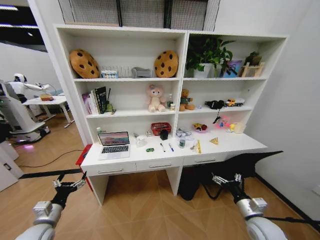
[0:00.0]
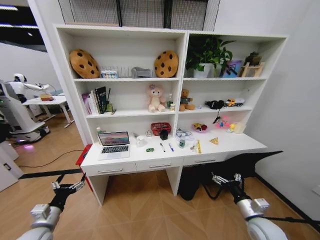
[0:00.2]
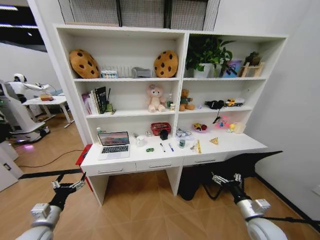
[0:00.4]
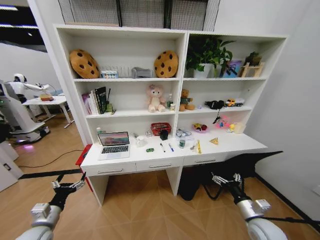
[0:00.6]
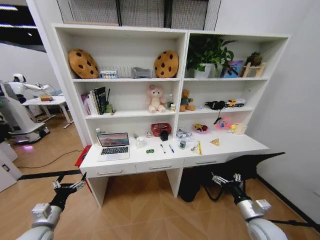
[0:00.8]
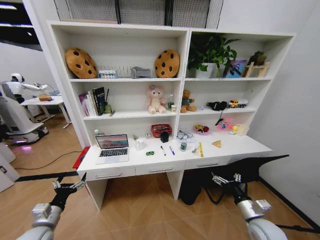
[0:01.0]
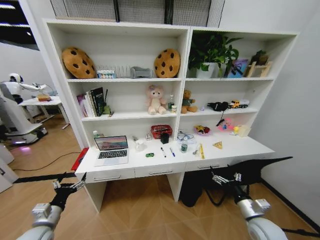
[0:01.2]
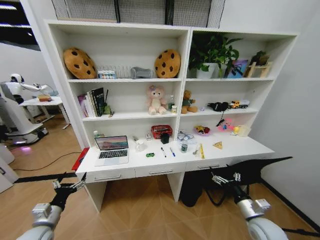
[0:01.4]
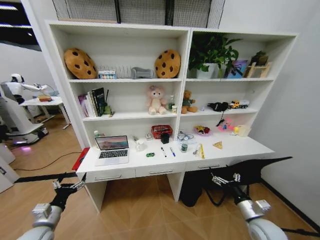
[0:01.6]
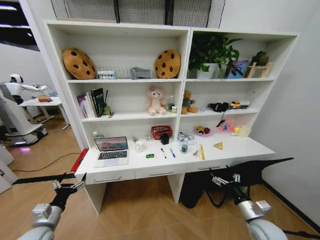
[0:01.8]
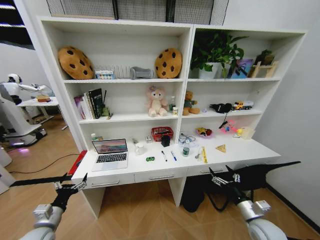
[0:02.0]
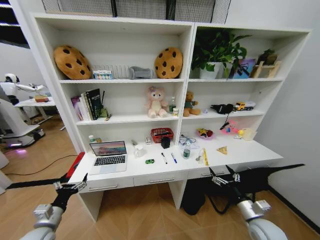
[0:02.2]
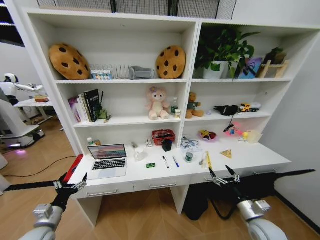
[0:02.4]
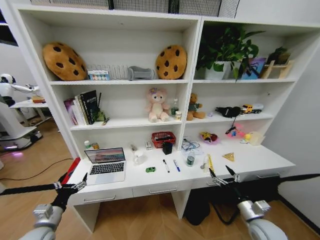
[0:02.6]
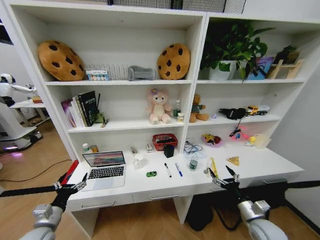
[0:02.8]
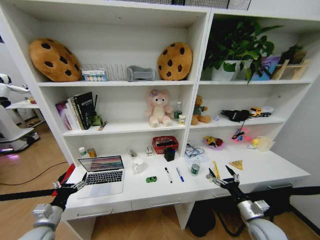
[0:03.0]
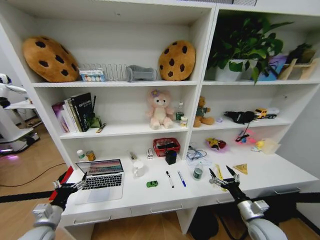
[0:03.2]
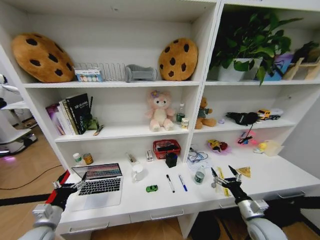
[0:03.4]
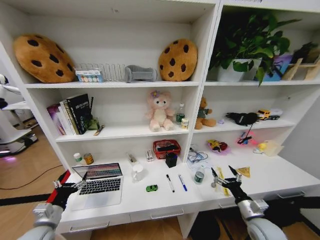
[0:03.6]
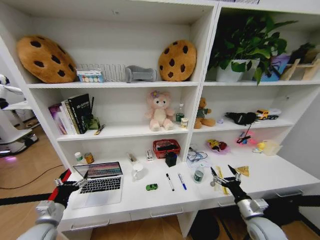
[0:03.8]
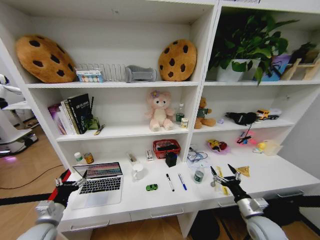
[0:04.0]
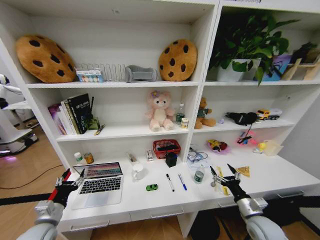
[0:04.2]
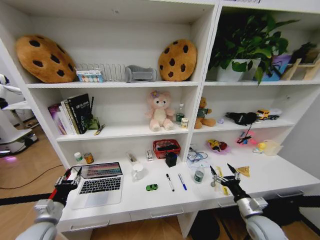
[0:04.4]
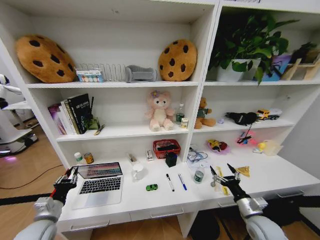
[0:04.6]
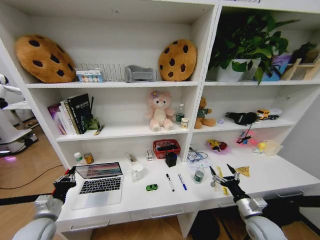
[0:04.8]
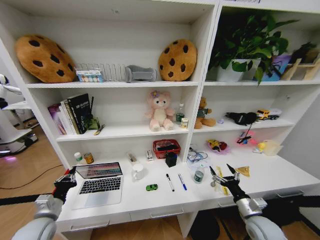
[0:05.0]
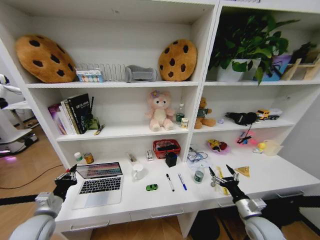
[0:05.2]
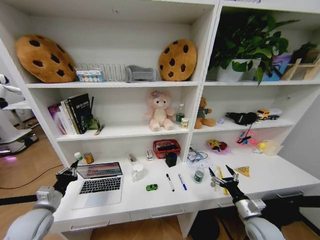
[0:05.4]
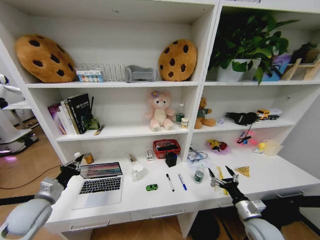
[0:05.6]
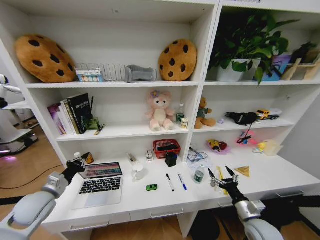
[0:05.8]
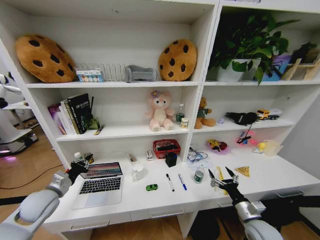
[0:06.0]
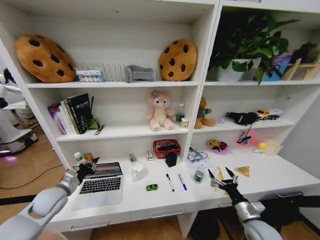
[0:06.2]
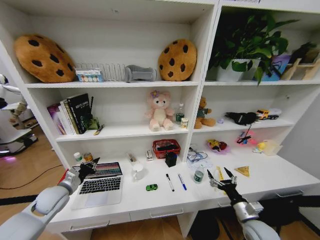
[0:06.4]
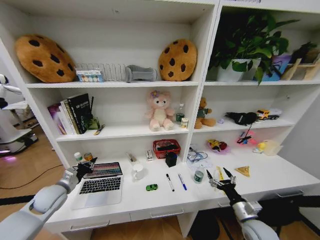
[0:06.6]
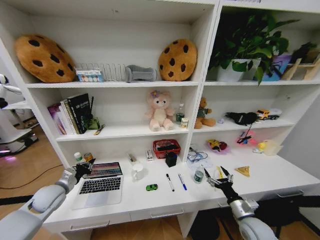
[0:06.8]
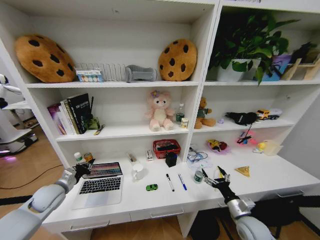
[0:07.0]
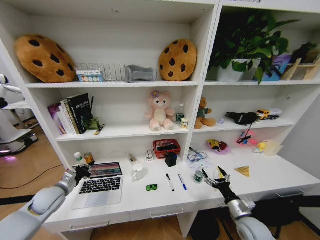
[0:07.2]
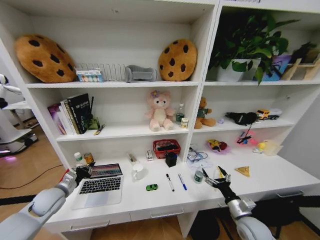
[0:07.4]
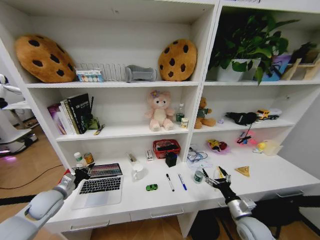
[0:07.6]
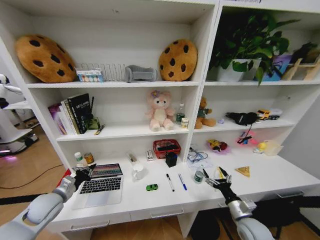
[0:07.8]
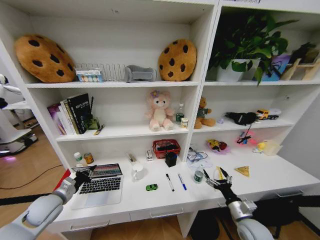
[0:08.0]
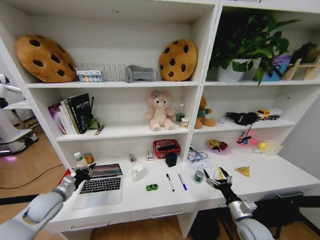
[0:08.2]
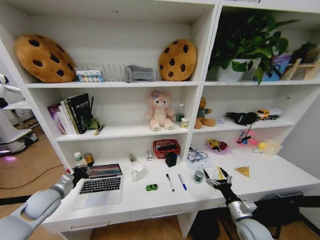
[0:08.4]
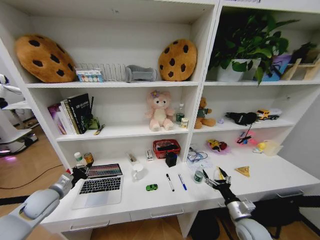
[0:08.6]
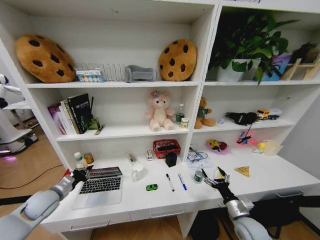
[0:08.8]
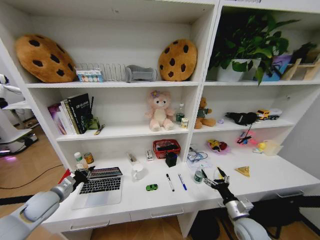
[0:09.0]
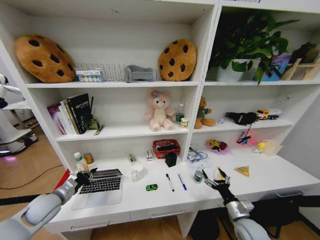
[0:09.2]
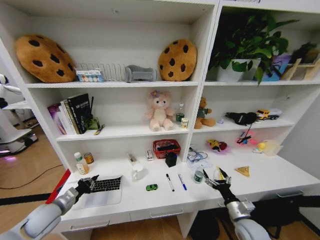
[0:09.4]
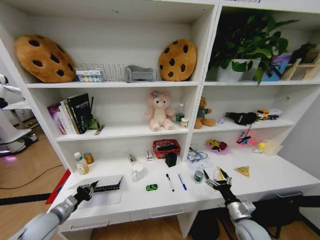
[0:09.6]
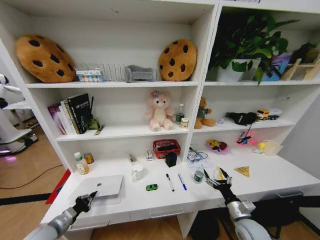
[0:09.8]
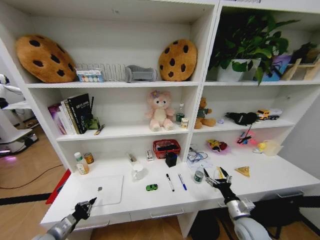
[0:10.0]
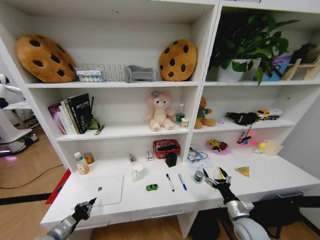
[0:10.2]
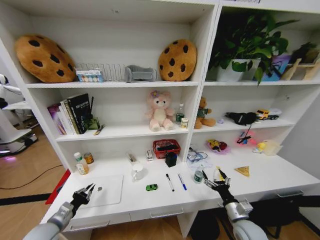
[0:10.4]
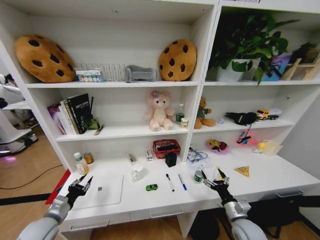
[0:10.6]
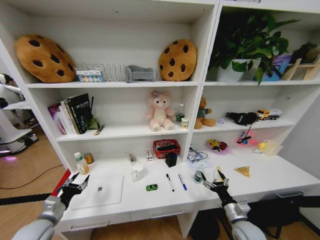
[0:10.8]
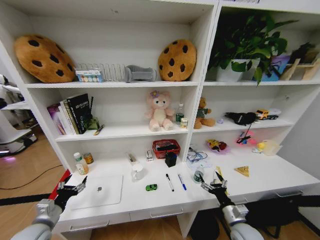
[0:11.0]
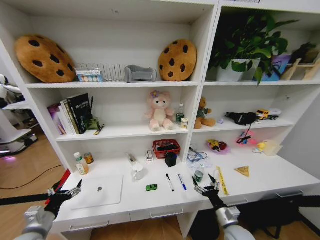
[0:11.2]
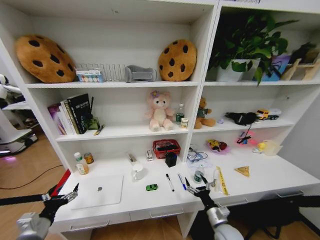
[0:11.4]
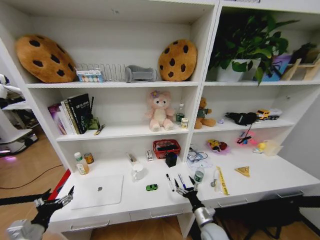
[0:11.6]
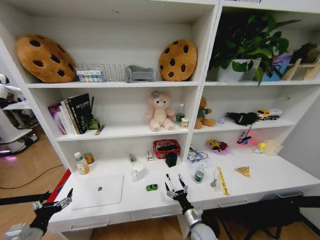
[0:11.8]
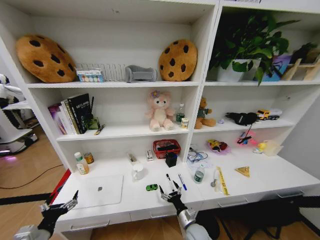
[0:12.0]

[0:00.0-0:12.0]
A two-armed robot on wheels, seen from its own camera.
Task of the whole recording: Organize the objects on the table.
0:03.0 to 0:04.4: The left gripper closes up.
0:04.4 to 0:06.0: The left gripper shifts some 10 cm forward and upward, and closes up.
0:06.0 to 0:09.0: The grippers move only a little.
0:09.0 to 0:10.4: The left gripper heads backward and downward, covering about 10 cm.
0:10.4 to 0:12.0: The left gripper heads backward, covering about 10 cm, and opens up. Meanwhile the right gripper shifts some 20 cm to the left and downward.

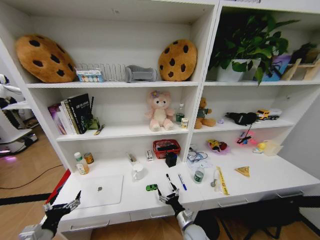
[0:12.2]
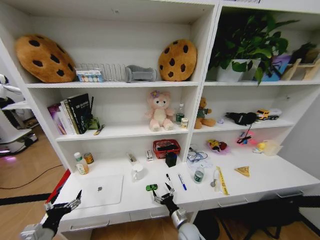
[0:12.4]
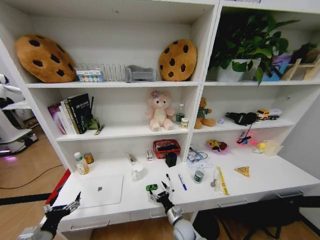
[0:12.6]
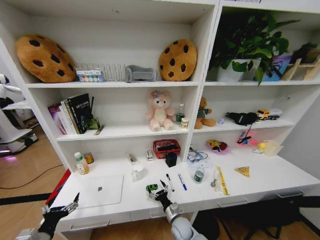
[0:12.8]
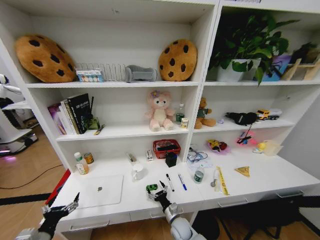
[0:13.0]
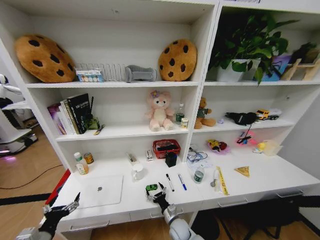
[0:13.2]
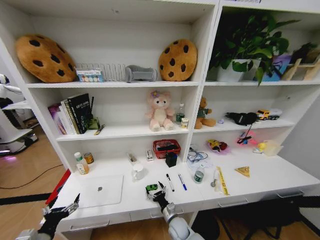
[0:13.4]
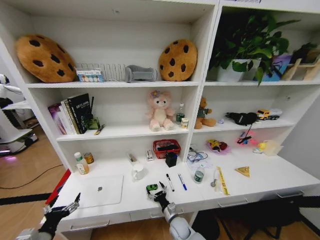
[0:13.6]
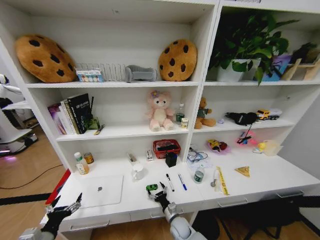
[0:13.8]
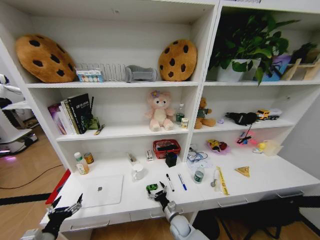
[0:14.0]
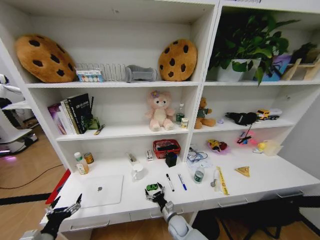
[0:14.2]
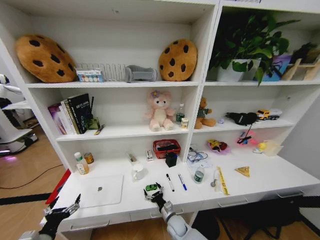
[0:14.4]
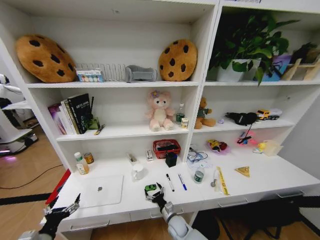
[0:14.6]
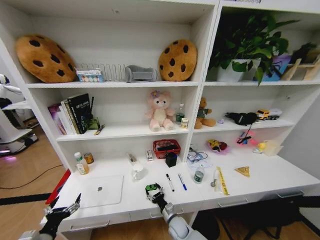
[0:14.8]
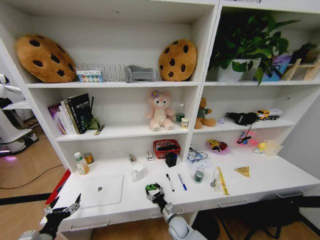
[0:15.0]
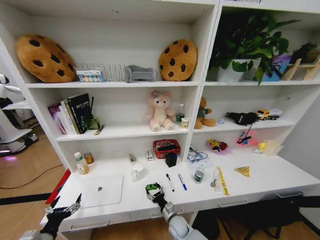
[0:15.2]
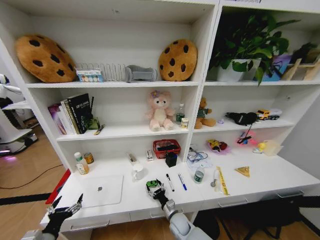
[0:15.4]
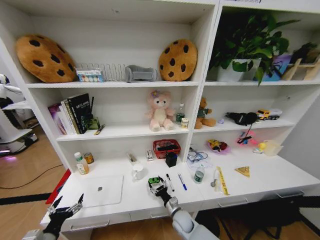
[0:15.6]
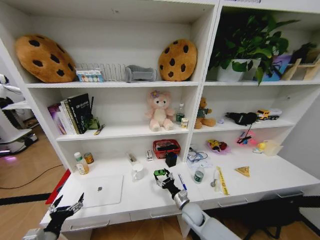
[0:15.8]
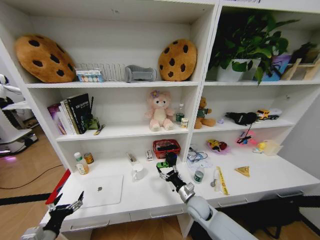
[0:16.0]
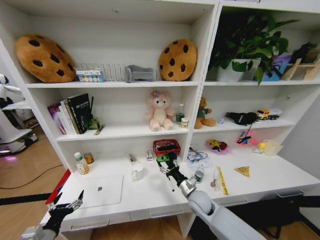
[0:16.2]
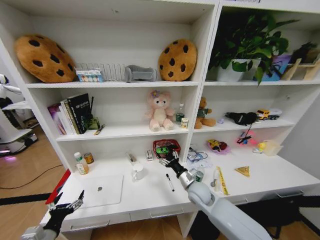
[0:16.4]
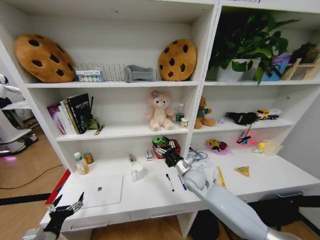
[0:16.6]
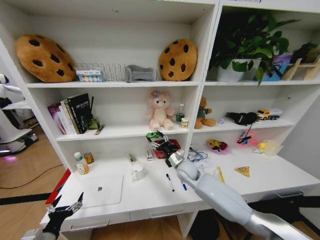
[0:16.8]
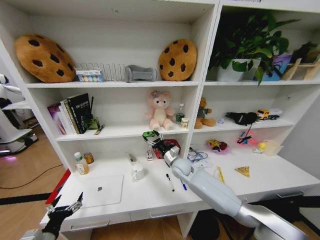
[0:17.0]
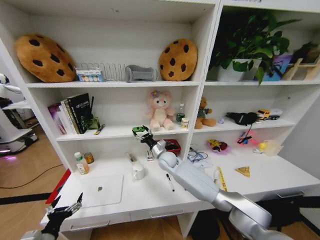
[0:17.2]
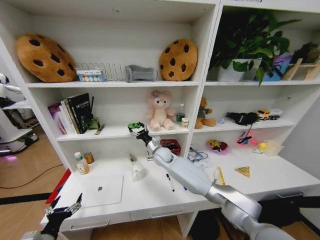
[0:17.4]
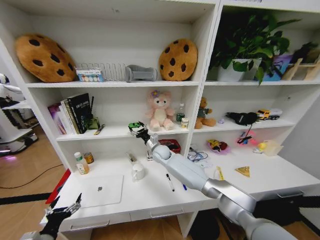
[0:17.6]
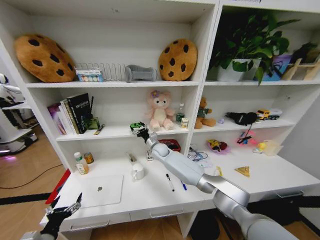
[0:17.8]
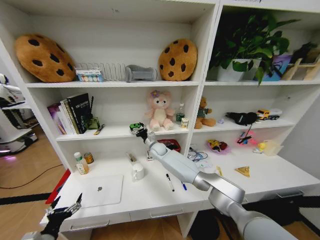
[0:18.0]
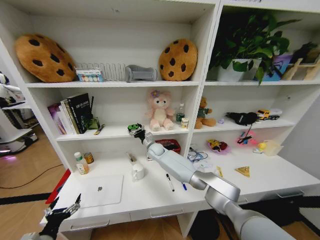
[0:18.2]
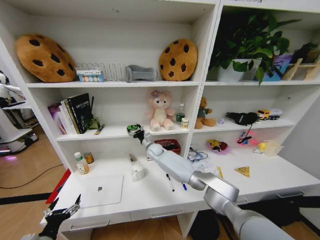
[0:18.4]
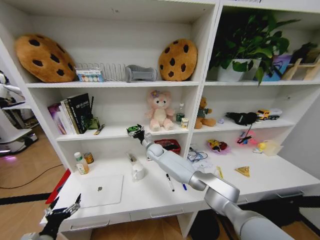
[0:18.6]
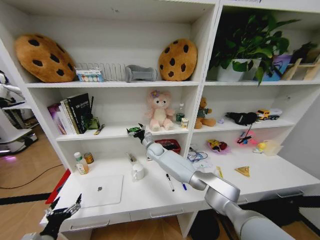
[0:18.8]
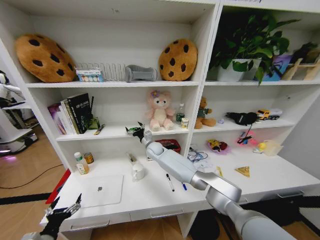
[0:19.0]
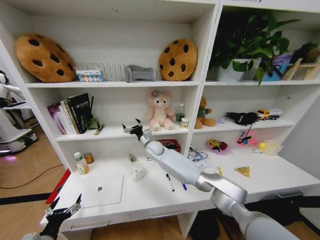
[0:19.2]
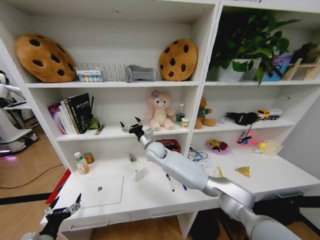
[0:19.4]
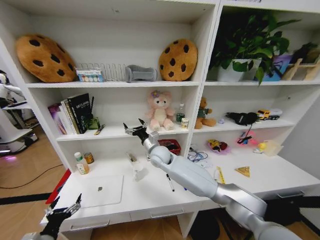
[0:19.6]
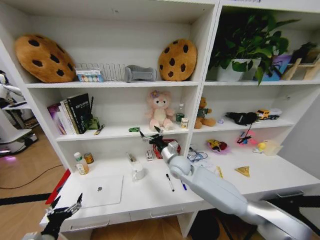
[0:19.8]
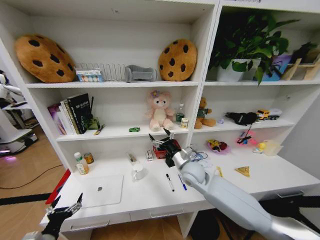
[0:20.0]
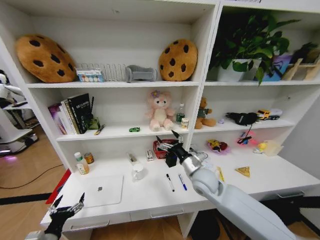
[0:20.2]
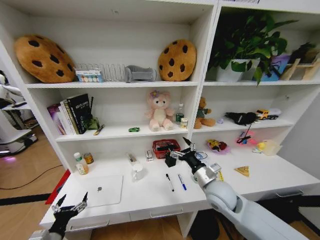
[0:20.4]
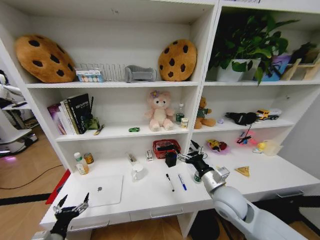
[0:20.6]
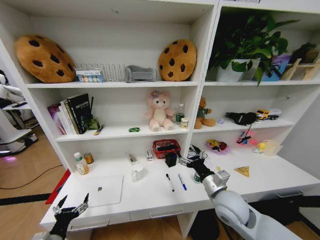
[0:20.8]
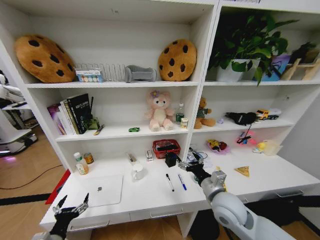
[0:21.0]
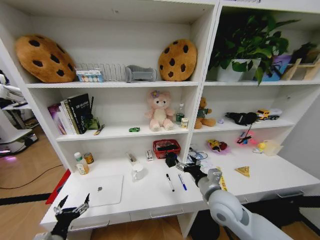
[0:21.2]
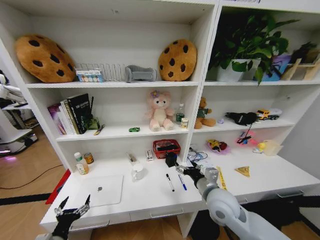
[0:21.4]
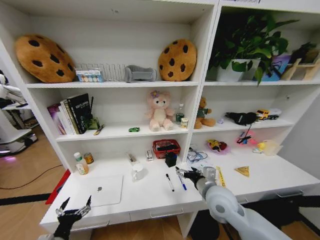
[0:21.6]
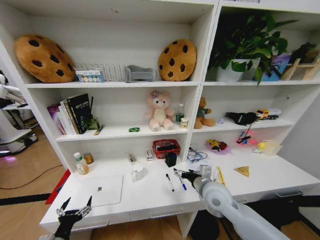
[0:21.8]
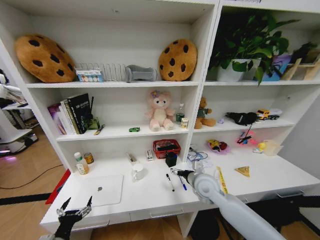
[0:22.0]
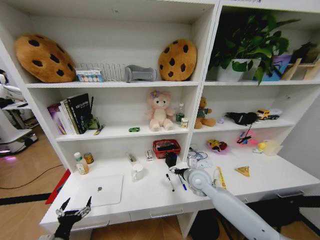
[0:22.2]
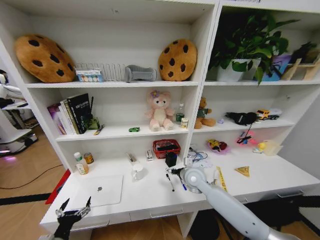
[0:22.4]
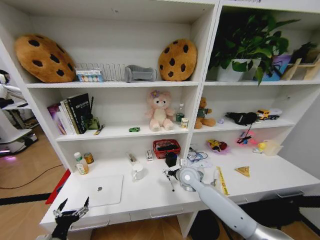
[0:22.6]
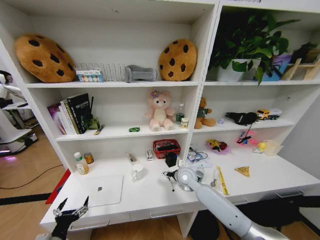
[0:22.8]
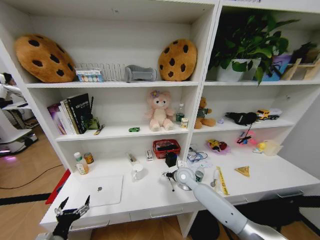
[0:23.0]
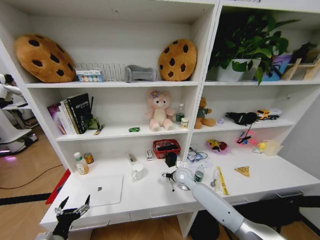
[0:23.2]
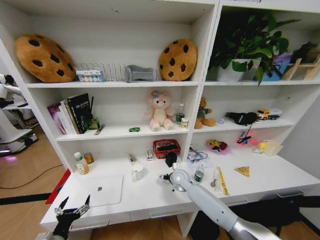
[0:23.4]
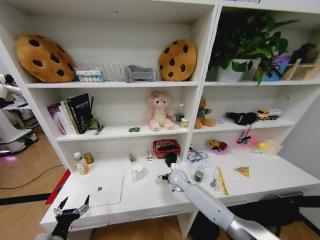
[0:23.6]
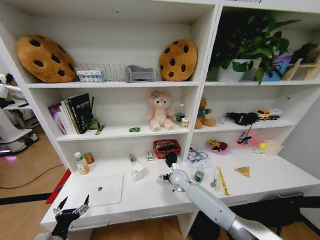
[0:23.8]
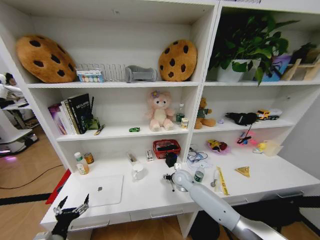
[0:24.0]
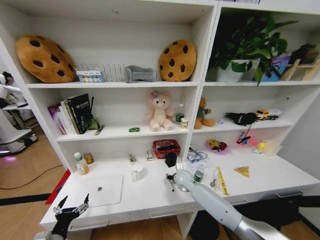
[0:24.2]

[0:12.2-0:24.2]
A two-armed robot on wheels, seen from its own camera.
Task of the whole recording: Organize the objects on the table.
0:12.2 to 0:13.8: The right gripper moves to the left, about 5 cm.
0:13.8 to 0:15.2: The grippers move only a little.
0:15.2 to 0:16.6: The right gripper moves upward and forward, about 25 cm.
0:16.6 to 0:18.2: The right gripper travels forward and to the left by about 25 cm.
0:18.2 to 0:19.8: The right gripper moves backward, to the right and upward, roughly 15 cm.
0:19.8 to 0:21.2: The right gripper is displaced backward and to the right by about 20 cm.
0:21.2 to 0:22.6: The right gripper goes about 15 cm forward and downward.
0:22.6 to 0:24.2: The right gripper shifts roughly 5 cm downward, and closes.
